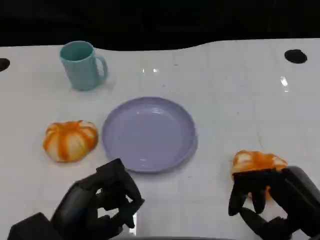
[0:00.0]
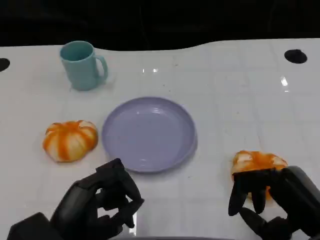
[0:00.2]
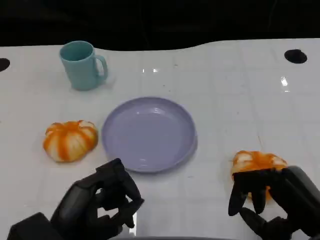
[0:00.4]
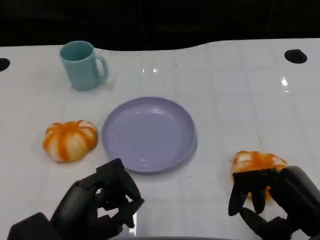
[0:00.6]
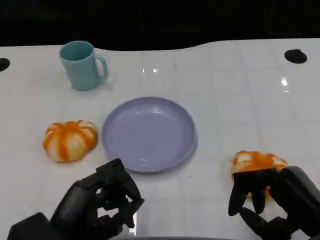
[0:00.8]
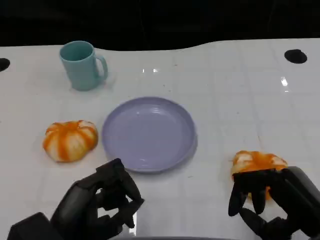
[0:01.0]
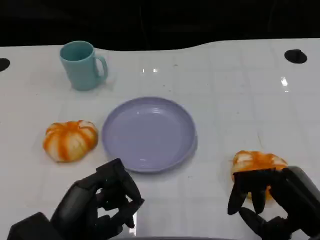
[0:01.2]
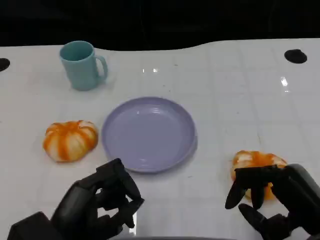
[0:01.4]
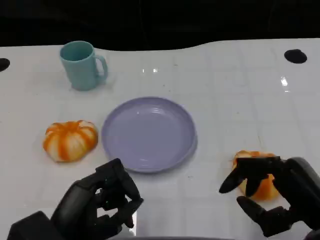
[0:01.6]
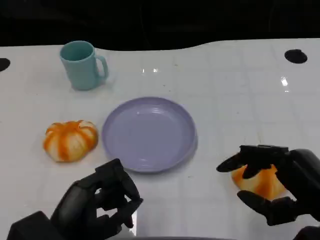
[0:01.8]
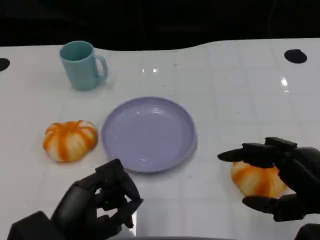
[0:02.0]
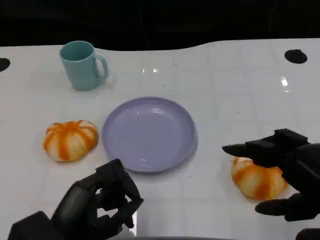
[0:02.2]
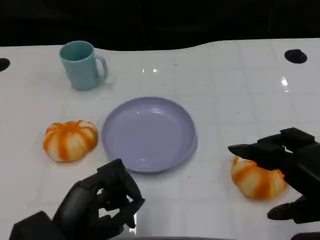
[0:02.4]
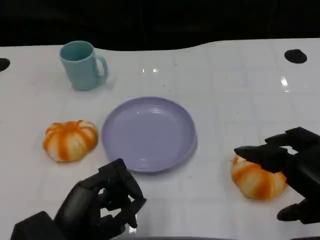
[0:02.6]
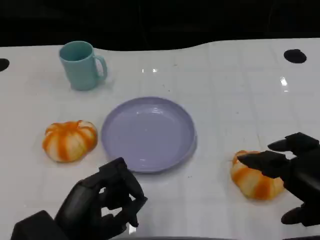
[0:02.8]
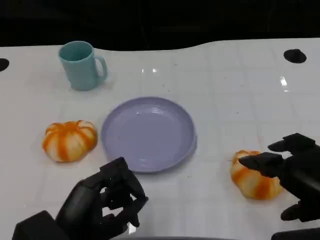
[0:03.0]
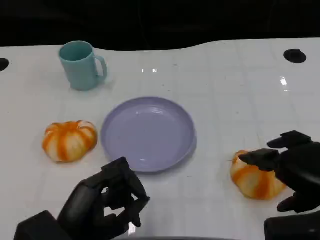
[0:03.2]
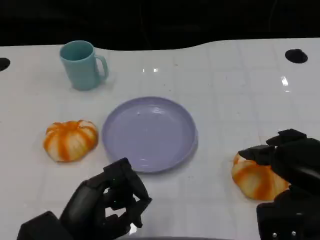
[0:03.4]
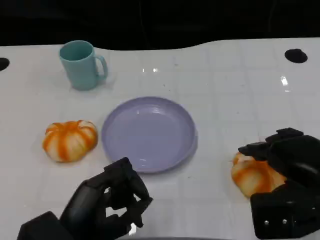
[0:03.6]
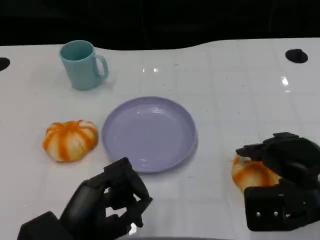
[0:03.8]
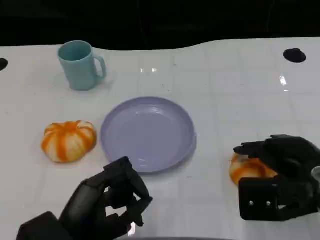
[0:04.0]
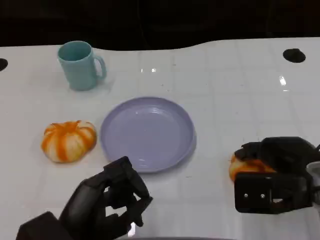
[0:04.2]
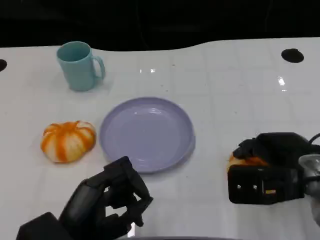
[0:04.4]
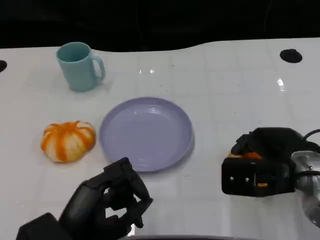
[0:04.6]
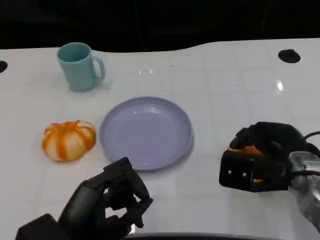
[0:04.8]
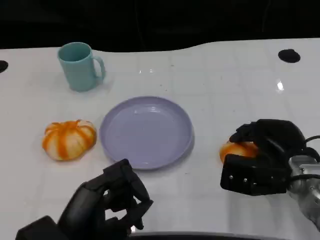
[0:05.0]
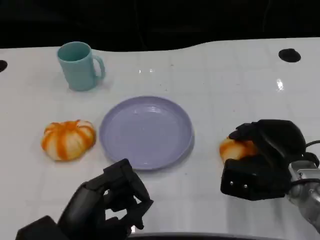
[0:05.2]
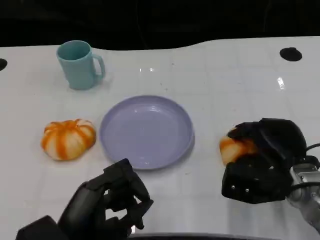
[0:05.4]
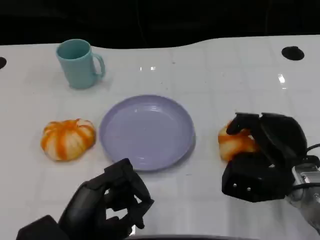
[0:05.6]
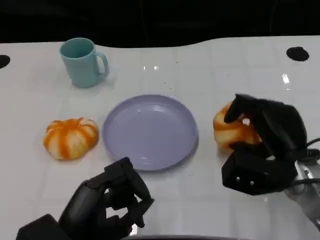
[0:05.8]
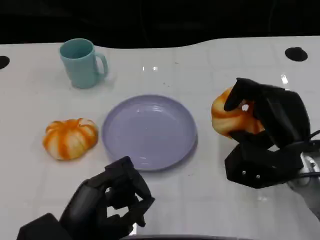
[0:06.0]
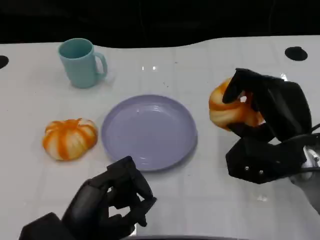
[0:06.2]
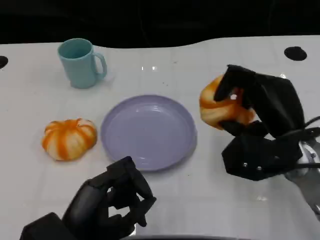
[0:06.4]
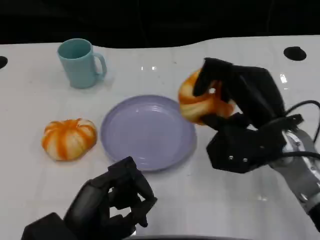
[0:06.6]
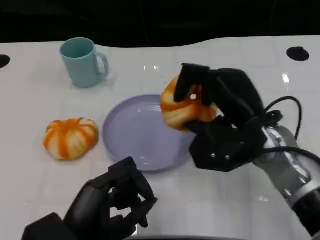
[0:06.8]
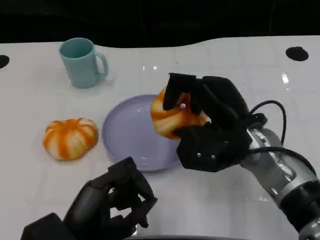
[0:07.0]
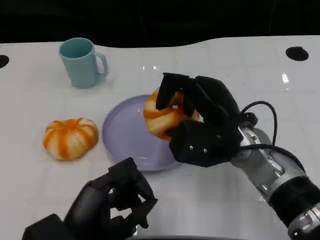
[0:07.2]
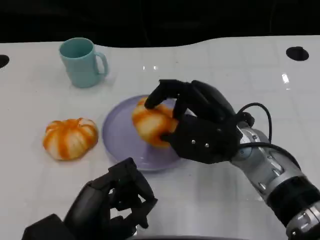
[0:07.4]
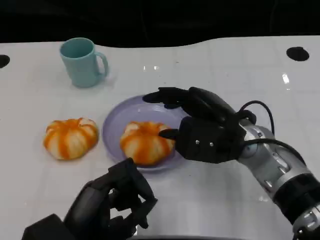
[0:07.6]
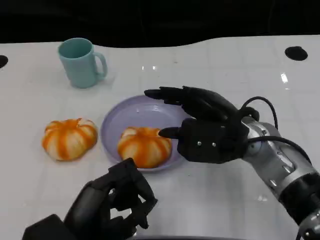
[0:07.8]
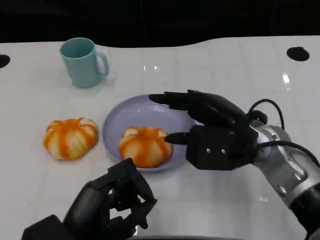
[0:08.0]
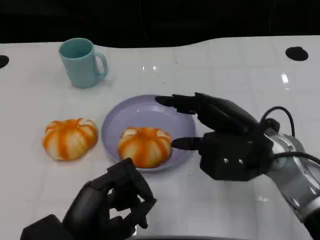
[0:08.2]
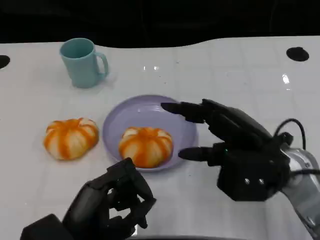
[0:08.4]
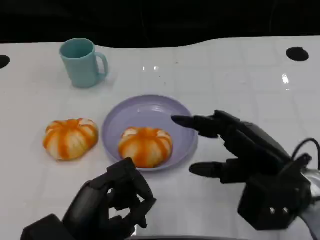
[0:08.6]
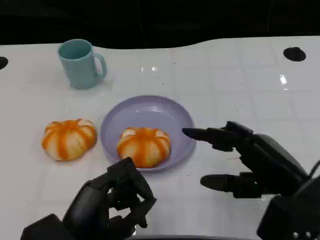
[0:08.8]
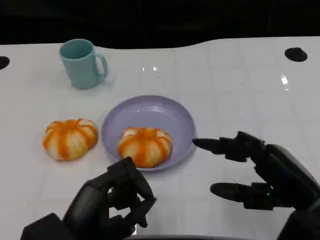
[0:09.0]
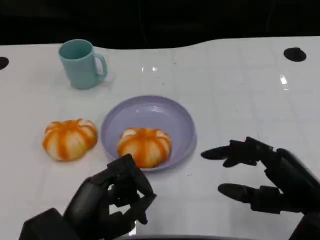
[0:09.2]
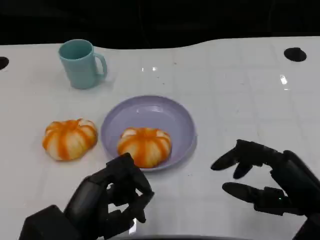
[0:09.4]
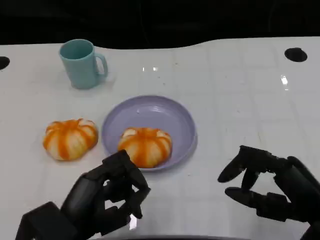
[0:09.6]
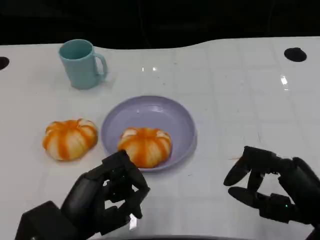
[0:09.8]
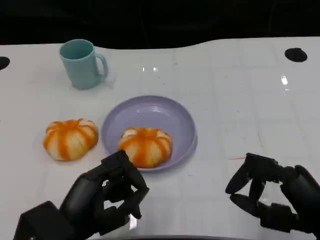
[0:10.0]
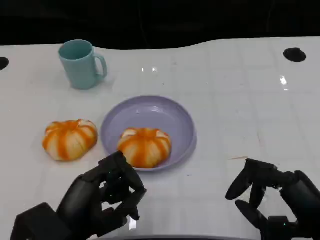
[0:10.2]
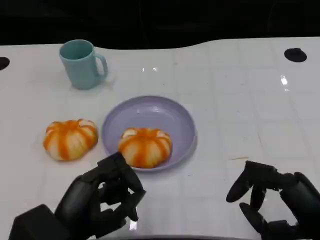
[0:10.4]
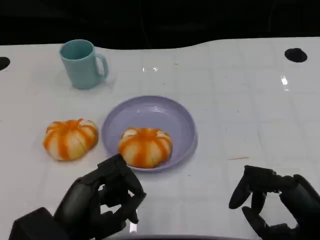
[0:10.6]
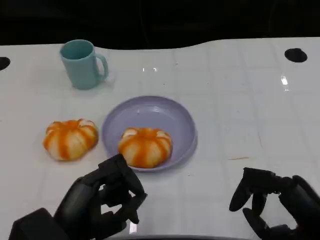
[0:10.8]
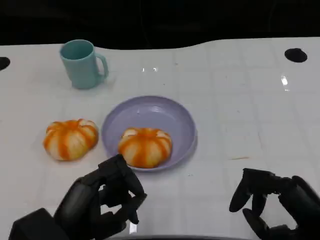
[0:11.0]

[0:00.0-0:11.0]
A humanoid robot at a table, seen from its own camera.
Task of the whole recording: Grasp the bread from the table and place it into the plate.
0:00.0 to 0:01.6: The hands move only a little.
0:03.2 to 0:04.8: The right hand shifts about 10 cm forward and downward.
0:06.2 to 0:07.8: The right hand travels to the left by some 5 cm.
0:07.8 to 0:09.4: The right hand is displaced backward and to the right by roughly 15 cm.
0:09.4 to 0:11.0: The hands stay close to where they were, moving slightly.

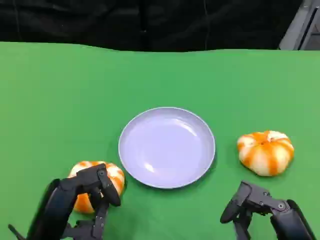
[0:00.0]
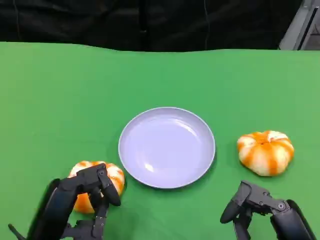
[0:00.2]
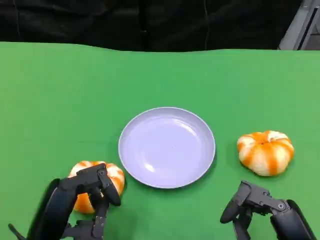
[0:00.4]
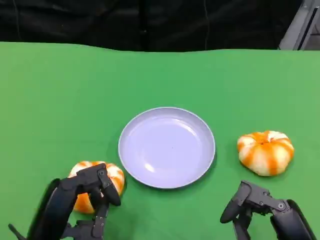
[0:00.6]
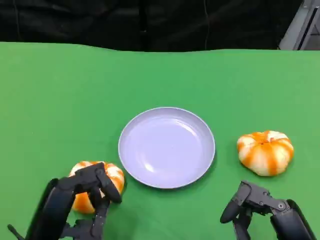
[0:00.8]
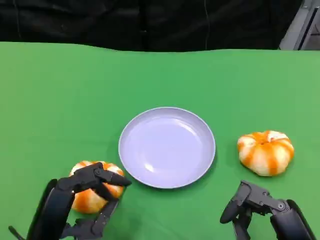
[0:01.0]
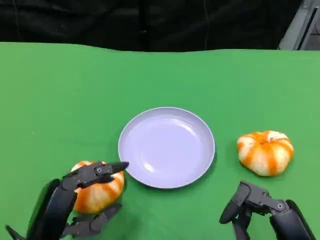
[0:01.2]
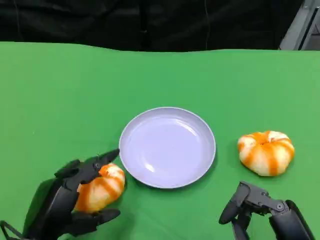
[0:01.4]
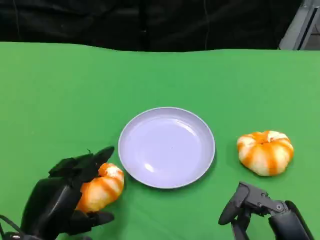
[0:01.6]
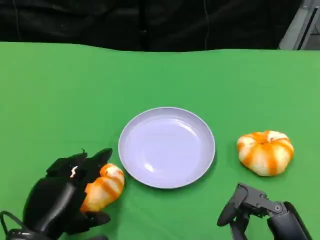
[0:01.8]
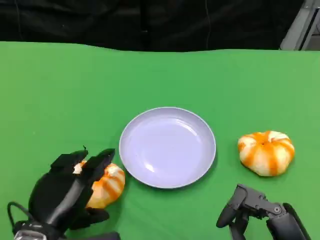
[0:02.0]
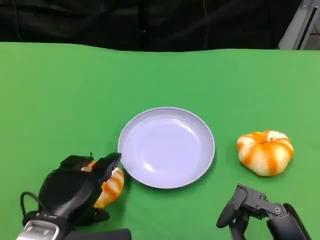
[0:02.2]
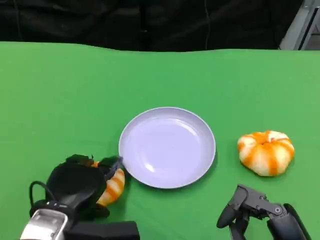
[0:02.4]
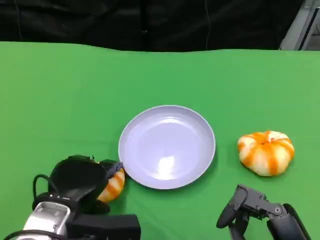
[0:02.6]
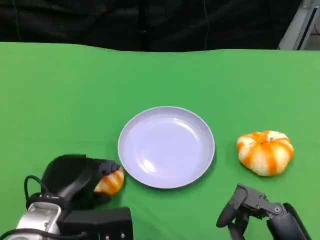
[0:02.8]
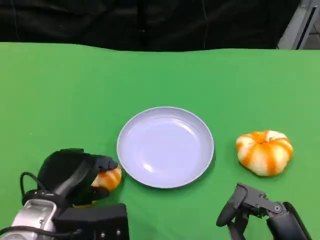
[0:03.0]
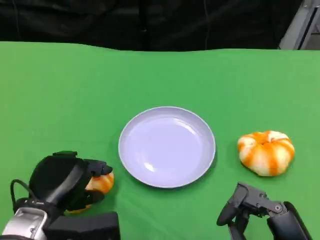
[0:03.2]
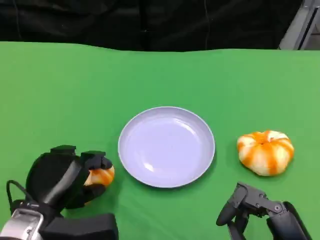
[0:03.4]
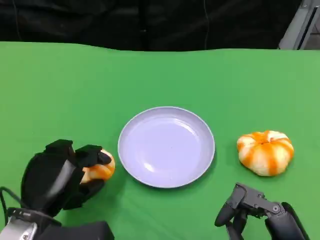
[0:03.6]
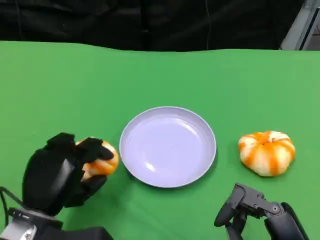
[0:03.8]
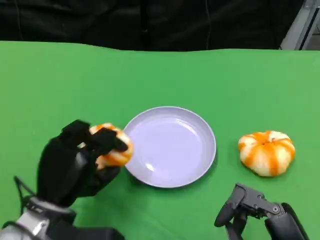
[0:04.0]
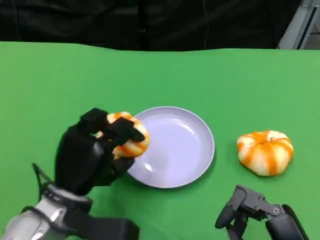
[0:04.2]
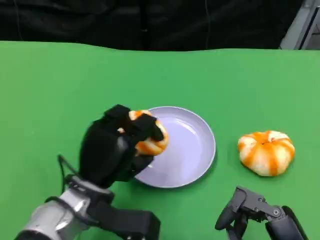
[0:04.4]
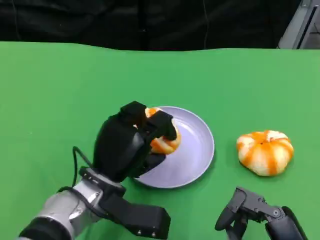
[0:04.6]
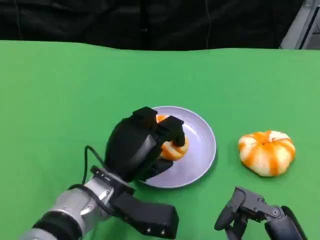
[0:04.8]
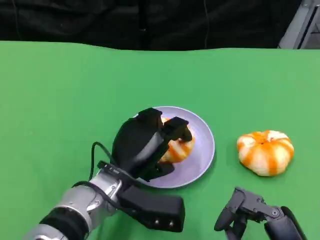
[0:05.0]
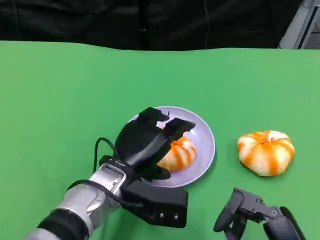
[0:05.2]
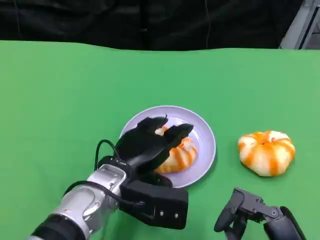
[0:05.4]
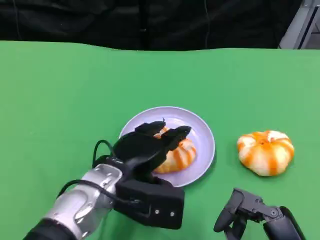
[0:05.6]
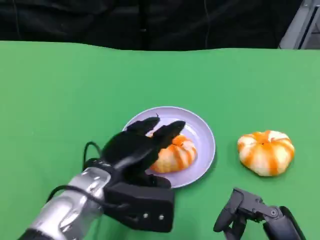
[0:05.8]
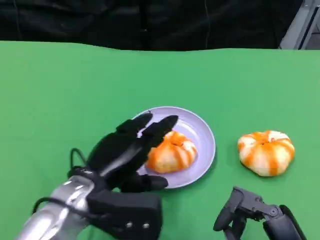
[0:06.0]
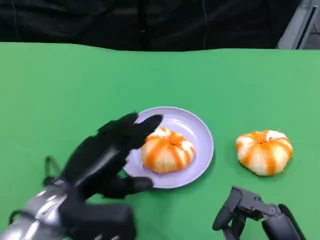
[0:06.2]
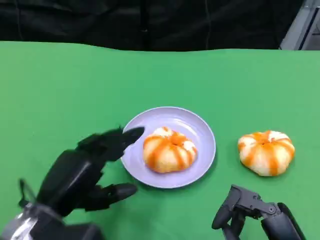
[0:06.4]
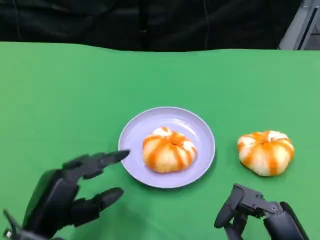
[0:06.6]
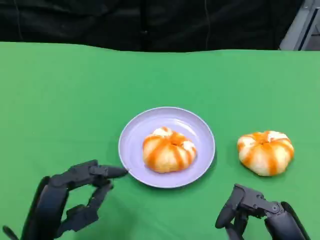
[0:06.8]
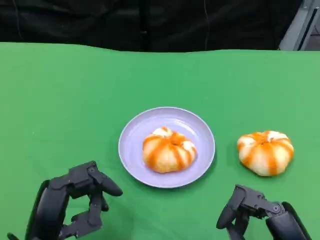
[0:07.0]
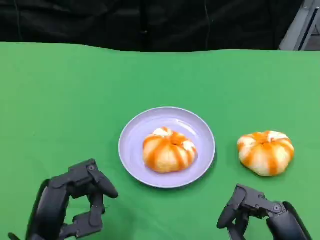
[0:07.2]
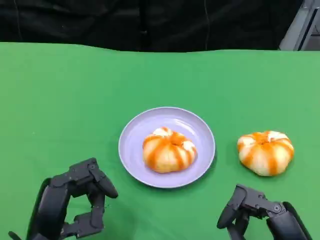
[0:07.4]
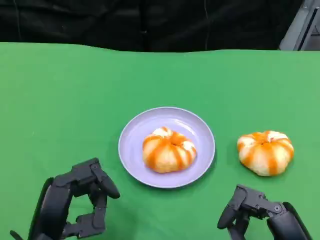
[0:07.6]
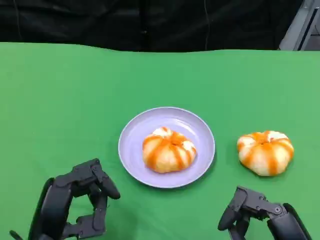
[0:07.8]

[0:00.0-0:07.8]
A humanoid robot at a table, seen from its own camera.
Task of the whole recording: Grasp the bread from the table and place it into the plate.
0:03.2 to 0:04.6: The left hand travels to the right by about 10 cm.
0:04.6 to 0:06.2: The left hand travels to the left by some 5 cm.
0:06.2 to 0:07.8: The left hand moves backward, about 5 cm.

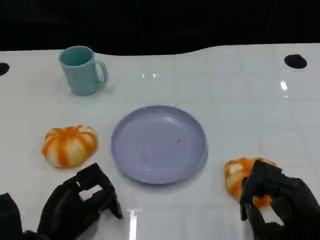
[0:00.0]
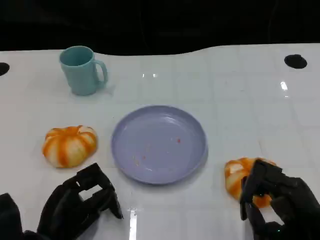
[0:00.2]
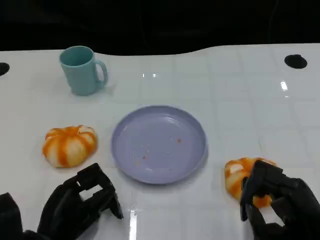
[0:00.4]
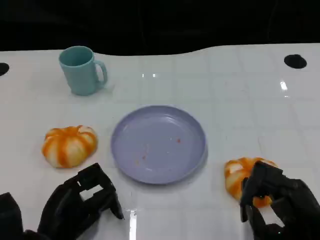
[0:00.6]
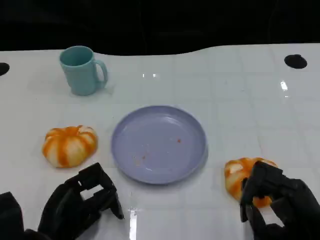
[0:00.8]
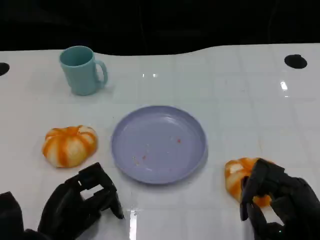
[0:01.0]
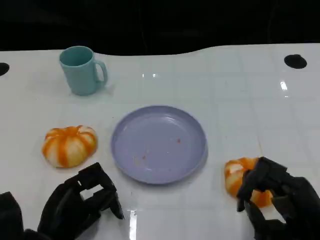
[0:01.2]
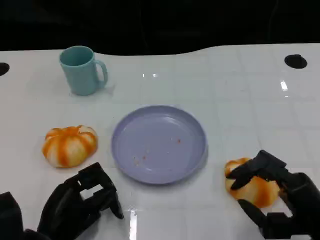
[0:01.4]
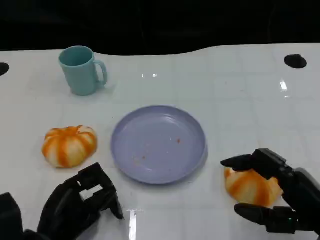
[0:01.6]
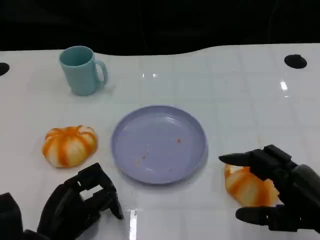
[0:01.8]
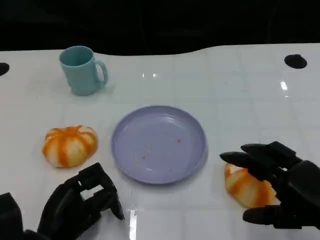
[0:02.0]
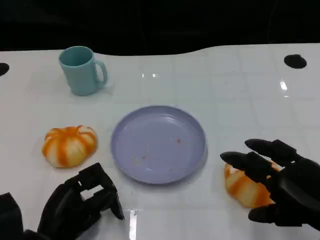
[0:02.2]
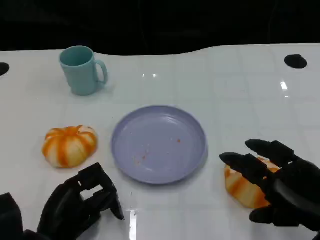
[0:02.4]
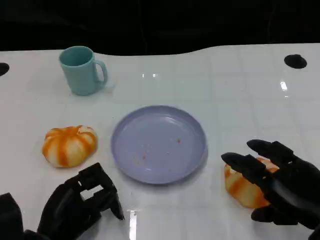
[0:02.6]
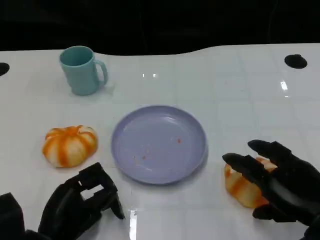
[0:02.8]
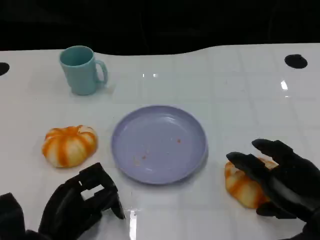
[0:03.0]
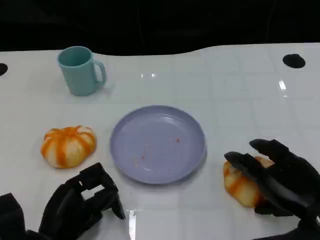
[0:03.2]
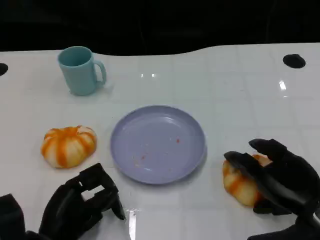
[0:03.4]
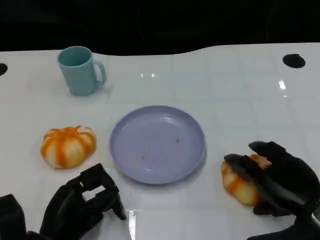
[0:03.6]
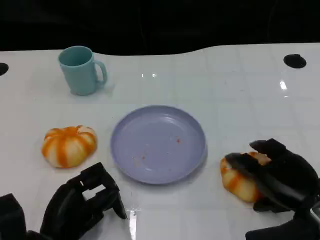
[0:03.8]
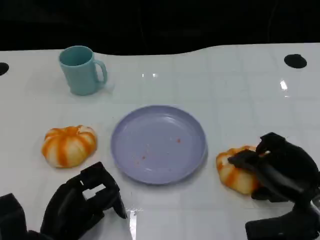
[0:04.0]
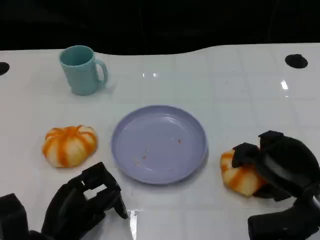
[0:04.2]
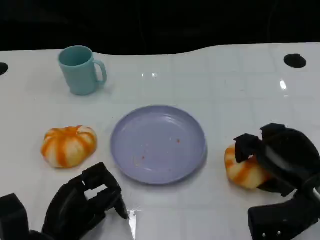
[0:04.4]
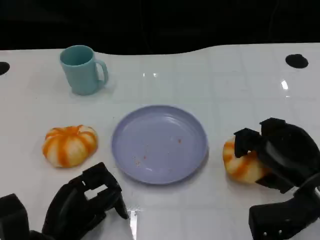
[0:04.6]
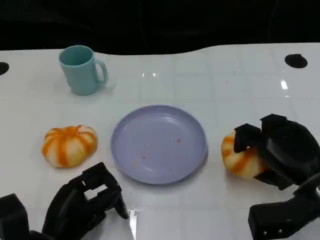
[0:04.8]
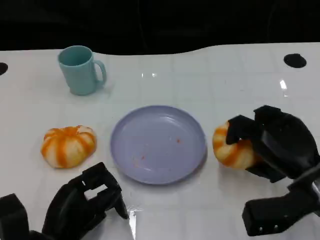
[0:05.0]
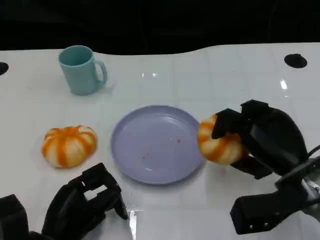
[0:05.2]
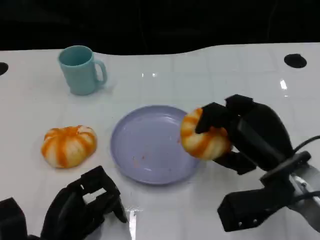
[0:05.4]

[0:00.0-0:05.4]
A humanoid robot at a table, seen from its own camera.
Task of the whole recording: Grasp the bread from the table and place it into the plate.
0:00.0 to 0:01.4: The hands move only a little.
0:02.8 to 0:04.0: The hands make only small movements.
0:04.0 to 0:05.4: The right hand is displaced to the left by approximately 5 cm.
